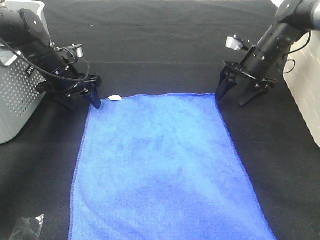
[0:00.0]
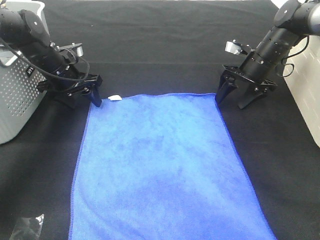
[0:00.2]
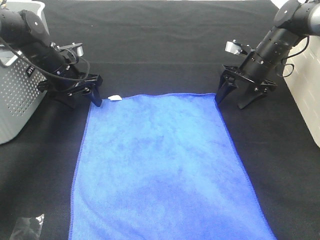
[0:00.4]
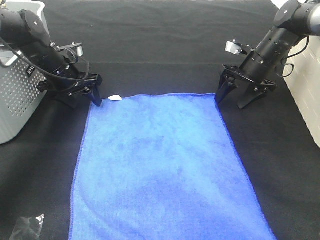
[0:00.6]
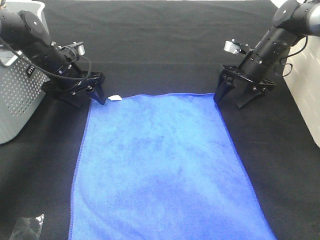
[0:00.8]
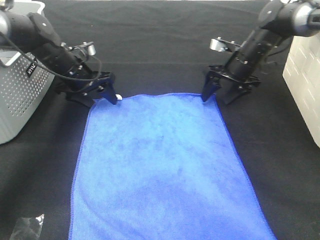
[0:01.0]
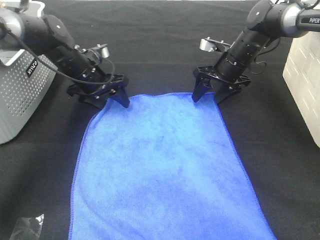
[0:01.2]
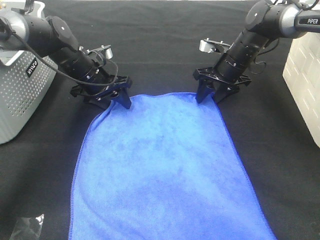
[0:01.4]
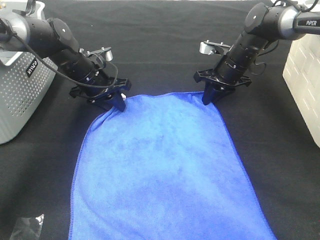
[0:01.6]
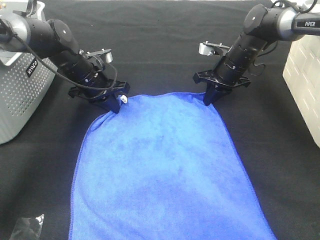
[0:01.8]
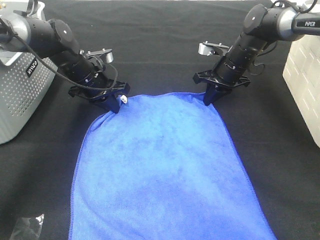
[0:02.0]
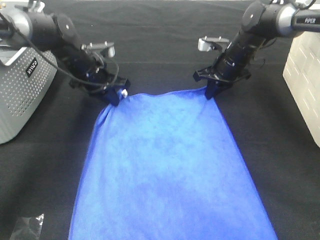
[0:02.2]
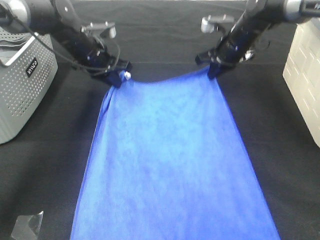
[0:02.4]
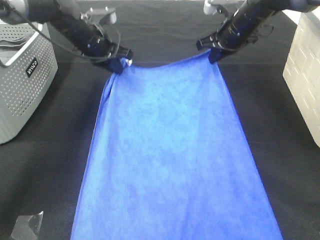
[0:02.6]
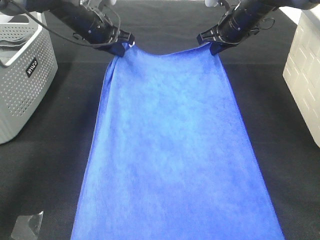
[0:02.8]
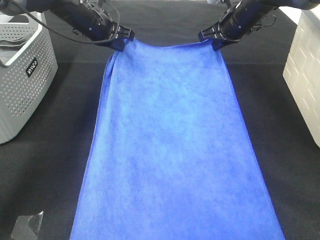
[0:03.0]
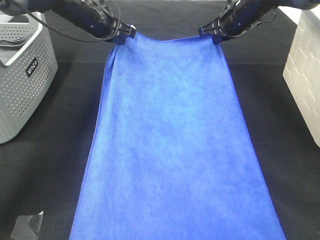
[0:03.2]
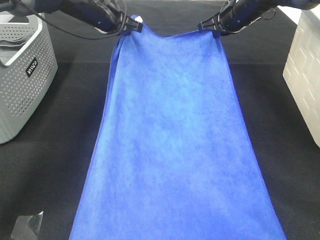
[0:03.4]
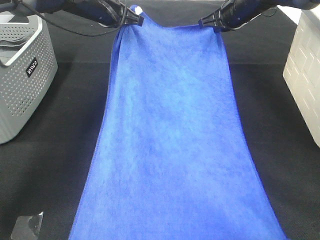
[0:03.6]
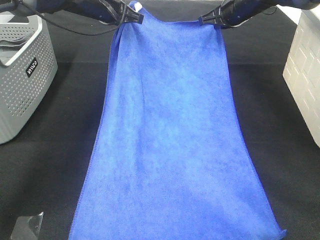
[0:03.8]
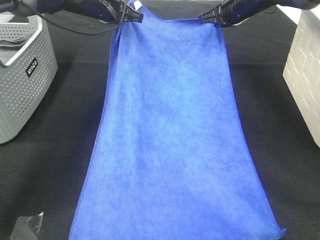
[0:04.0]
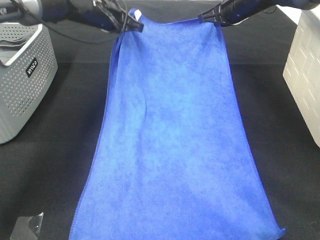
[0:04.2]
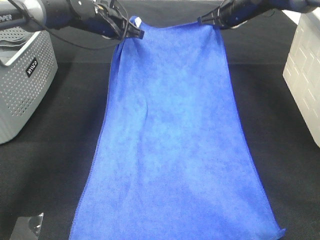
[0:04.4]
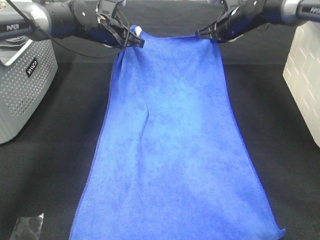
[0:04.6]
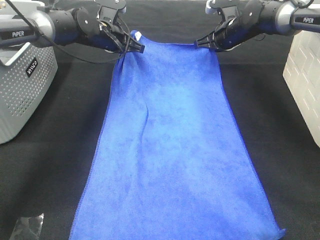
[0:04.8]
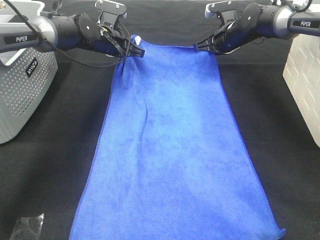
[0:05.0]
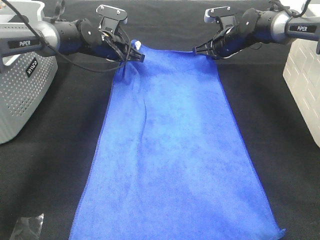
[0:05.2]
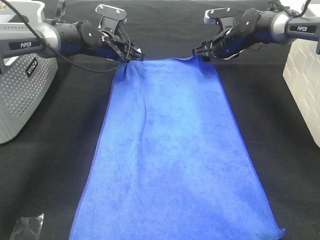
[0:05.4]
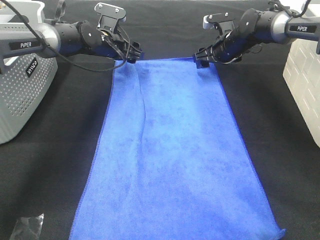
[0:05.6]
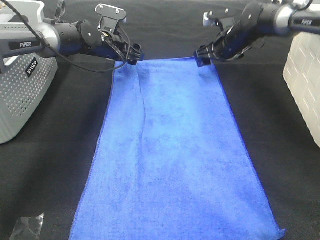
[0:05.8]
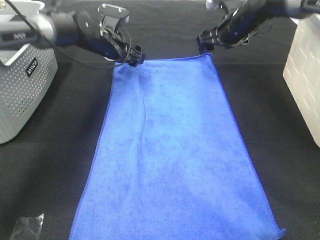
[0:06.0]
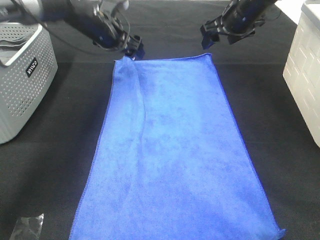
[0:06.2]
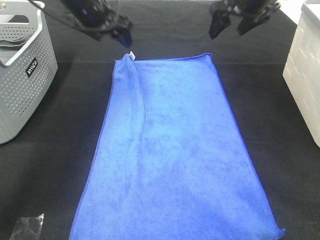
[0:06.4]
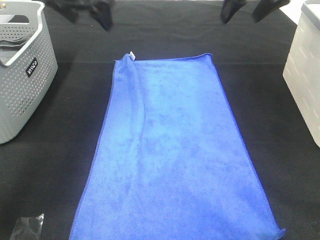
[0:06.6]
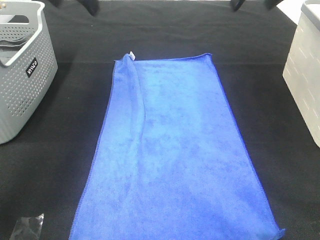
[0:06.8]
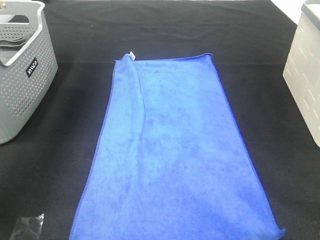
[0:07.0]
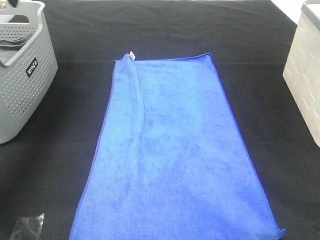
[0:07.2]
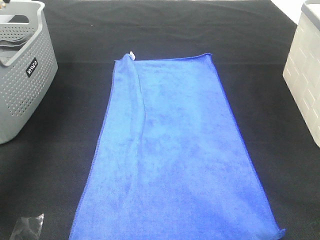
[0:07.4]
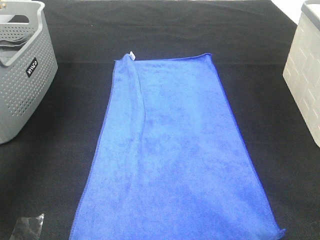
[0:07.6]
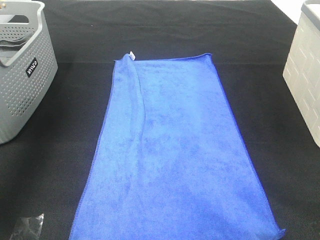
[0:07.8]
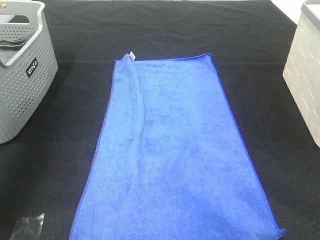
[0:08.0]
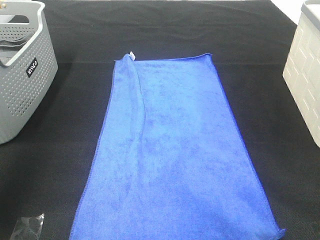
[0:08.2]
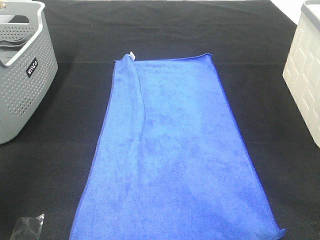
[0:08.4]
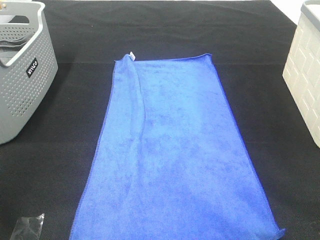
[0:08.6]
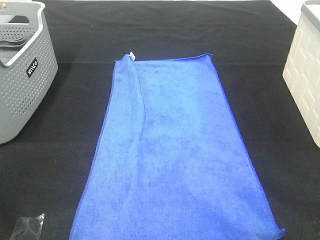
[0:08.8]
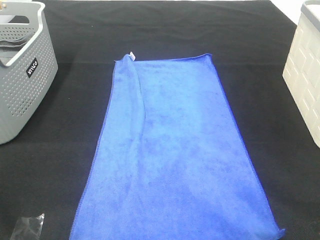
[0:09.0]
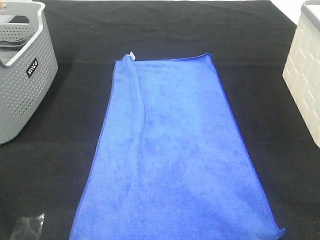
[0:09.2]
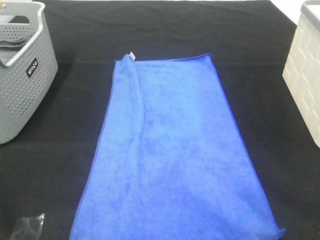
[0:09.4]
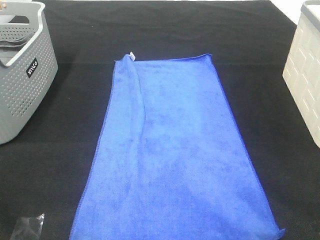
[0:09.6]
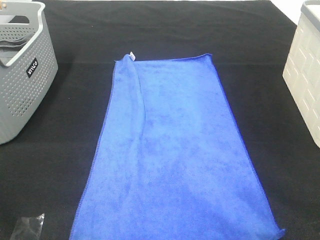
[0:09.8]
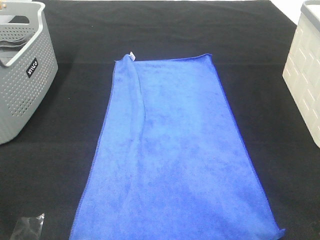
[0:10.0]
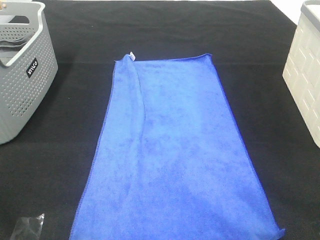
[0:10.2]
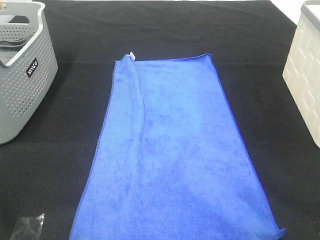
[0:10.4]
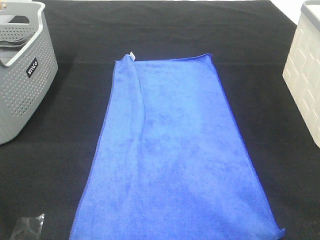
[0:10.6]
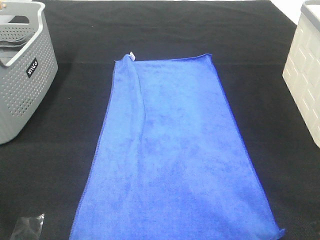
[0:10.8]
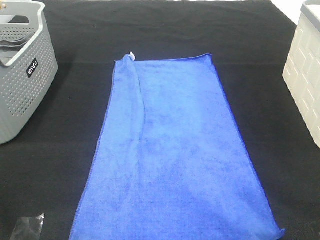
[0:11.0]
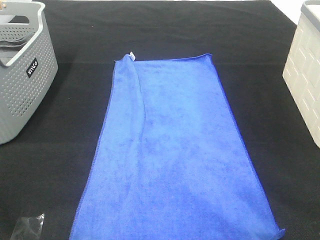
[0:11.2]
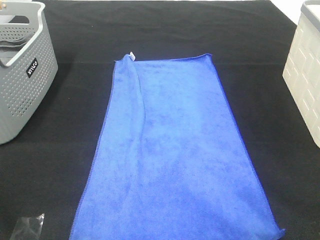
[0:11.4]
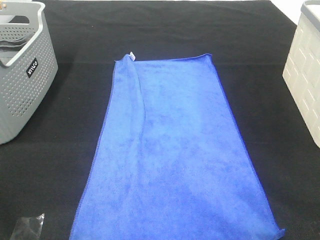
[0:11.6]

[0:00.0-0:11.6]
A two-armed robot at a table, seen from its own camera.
Task of the whole recording: Remove the towel and place it.
0:00.0 to 0:01.4: The right gripper is displaced to the left by about 5 cm; the left gripper goes about 5 cm to the right.
0:01.4 to 0:02.8: The left gripper heads upward and forward, covering about 10 cm, and closes its fingers. The right gripper shifts roughly 10 cm upward, and closes.
0:04.4 to 0:05.8: Both grippers move downward, approximately 5 cm. The left gripper opens up. The right gripper opens.
0:05.8 to 0:07.2: The left gripper goes about 30 cm upward, to the left and backward, while the right gripper goes some 30 cm upward and backward.
0:07.2 to 0:08.8: The two grippers go some 40 cm backward.
0:10.2 to 0:11.6: Neither gripper changes place.

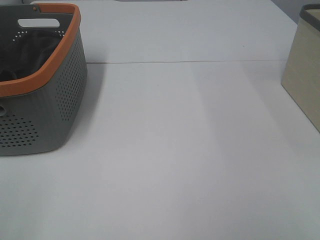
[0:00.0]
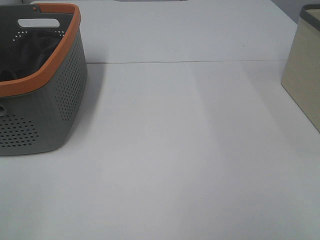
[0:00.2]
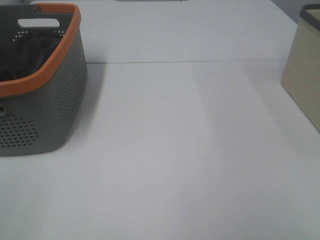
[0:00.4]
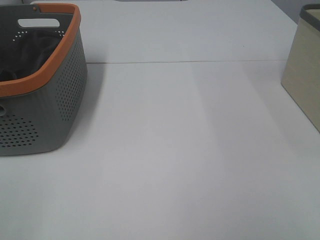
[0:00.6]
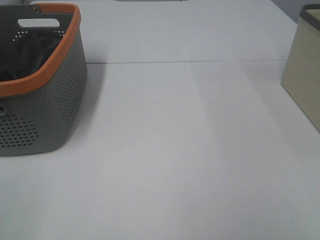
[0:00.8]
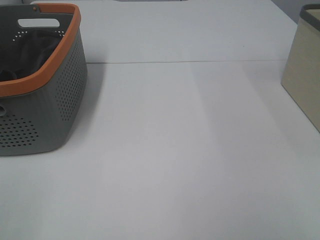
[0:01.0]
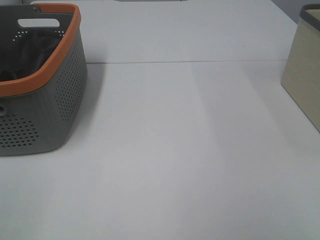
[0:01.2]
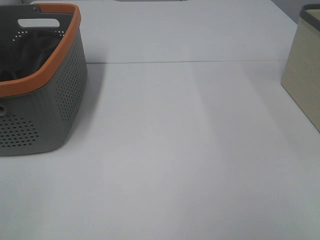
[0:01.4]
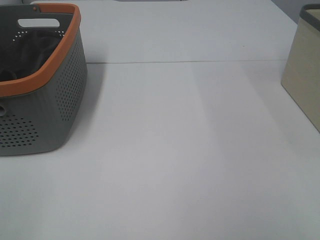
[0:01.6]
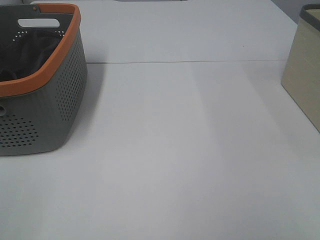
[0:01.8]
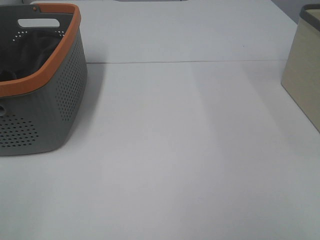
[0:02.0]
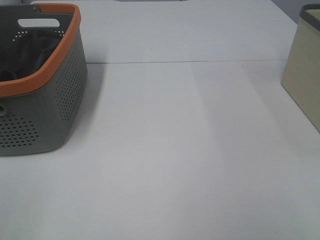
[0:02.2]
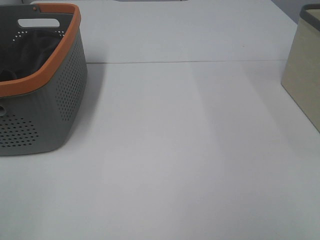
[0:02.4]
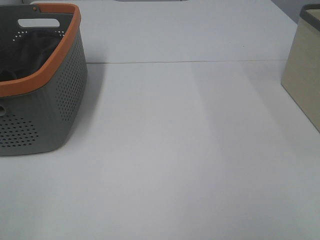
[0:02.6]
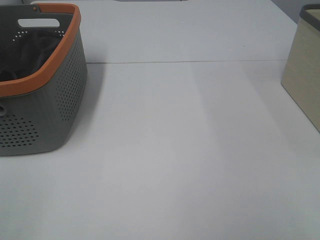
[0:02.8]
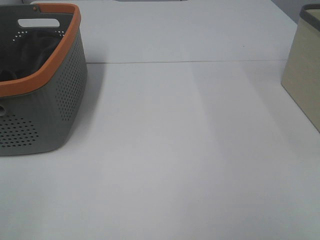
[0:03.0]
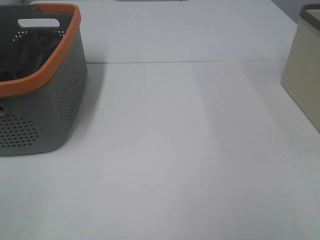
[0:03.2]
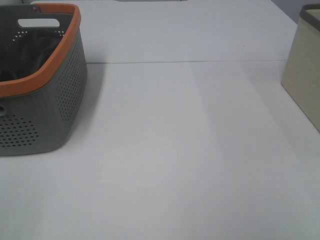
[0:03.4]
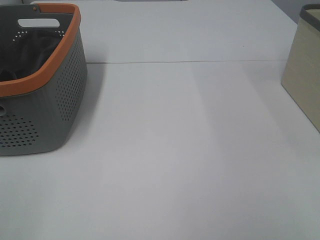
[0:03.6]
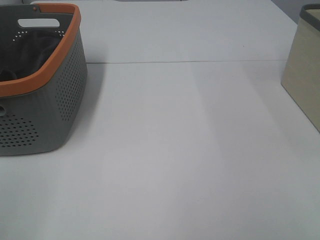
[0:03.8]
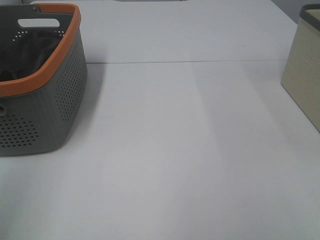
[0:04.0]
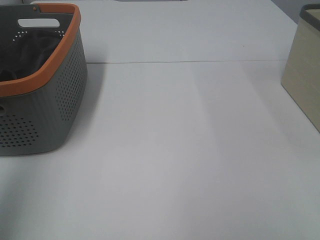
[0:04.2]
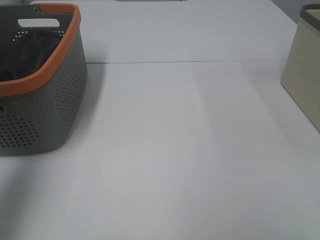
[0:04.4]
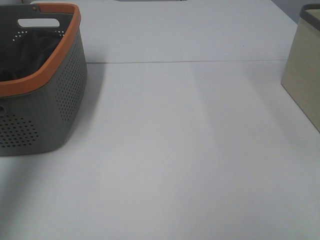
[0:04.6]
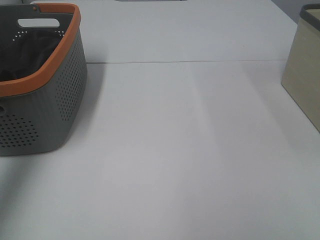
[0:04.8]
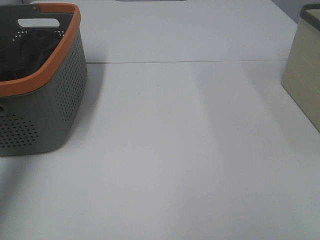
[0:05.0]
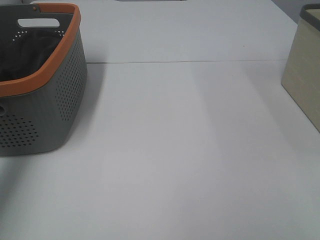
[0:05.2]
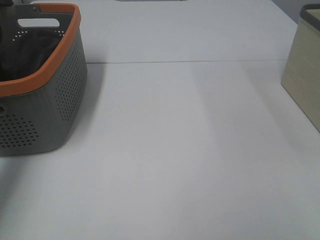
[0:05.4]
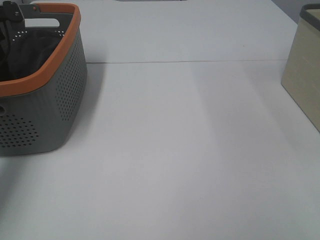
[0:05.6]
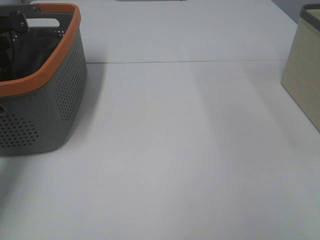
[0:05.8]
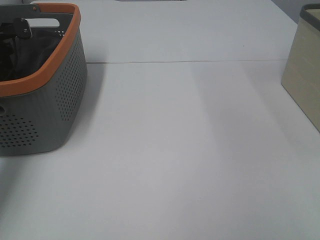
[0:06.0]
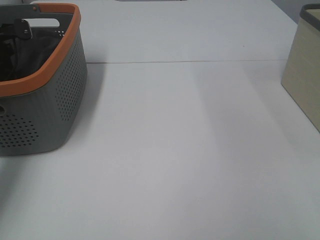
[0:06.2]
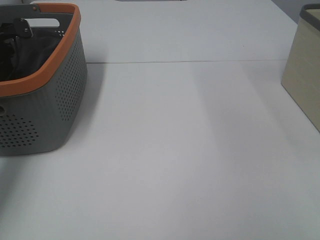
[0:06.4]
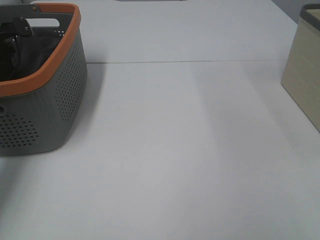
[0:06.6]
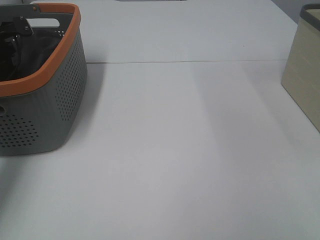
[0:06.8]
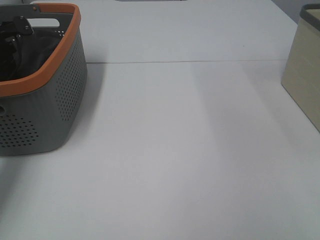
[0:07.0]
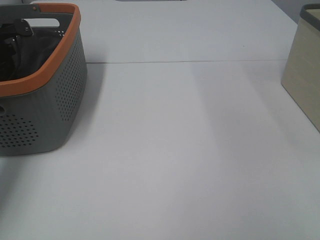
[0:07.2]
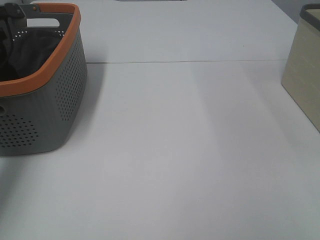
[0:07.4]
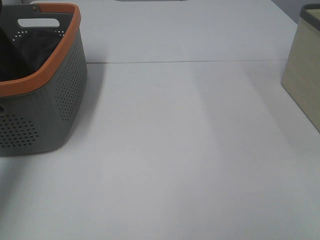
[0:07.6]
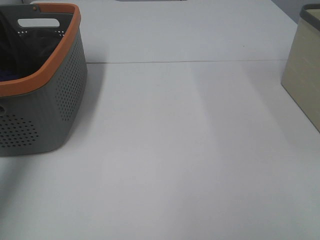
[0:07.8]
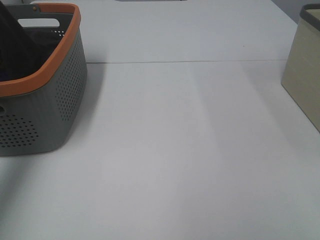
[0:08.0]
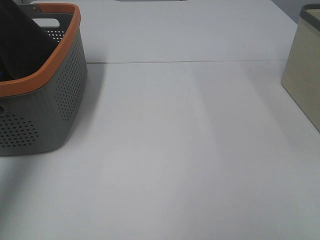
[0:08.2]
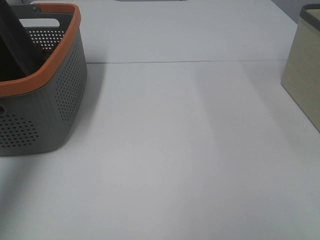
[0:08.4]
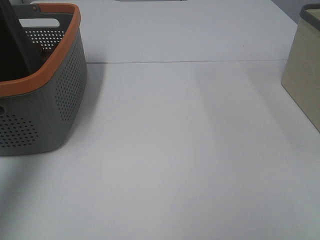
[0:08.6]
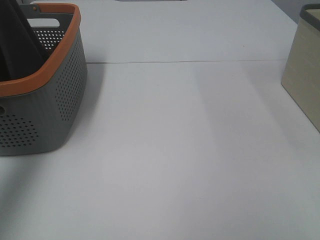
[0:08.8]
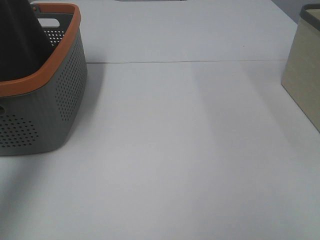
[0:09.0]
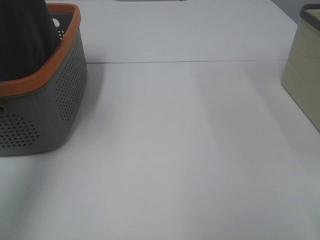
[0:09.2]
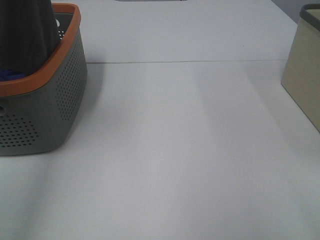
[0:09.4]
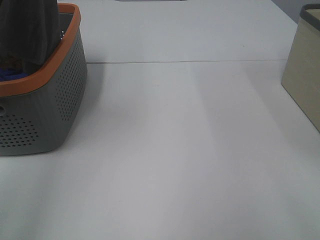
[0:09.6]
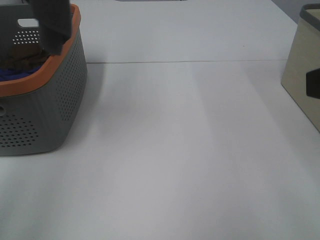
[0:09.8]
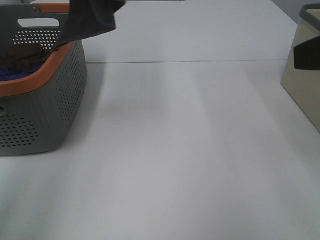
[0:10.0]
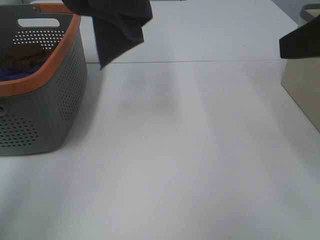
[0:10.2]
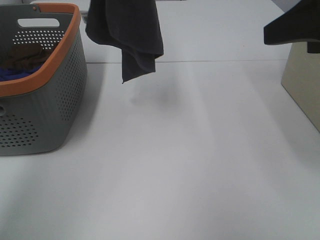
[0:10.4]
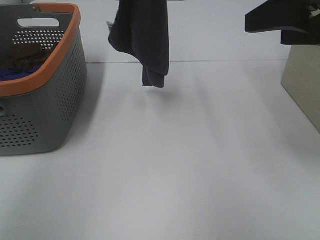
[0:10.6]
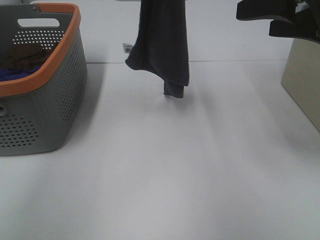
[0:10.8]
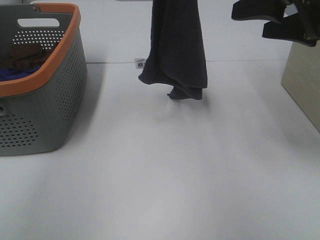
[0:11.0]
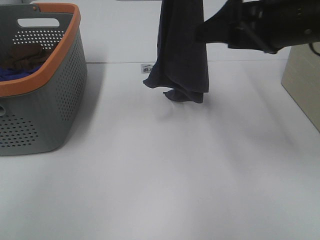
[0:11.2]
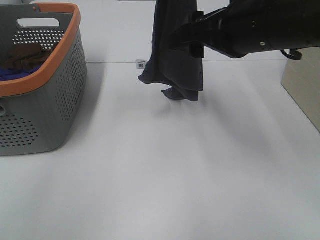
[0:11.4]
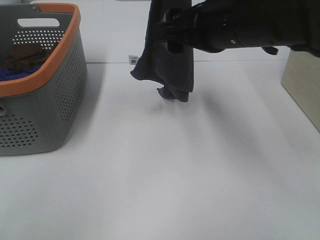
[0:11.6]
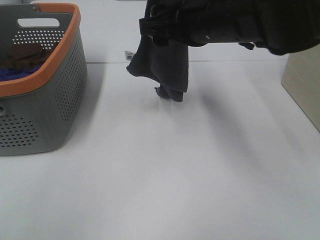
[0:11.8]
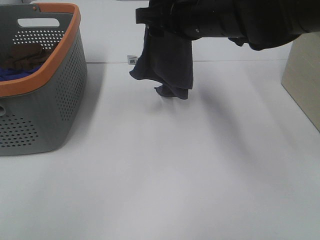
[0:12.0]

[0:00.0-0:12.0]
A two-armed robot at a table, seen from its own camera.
Task of the whole recording: Remove the towel and place it.
0:00.0 to 0:03.0: Neither gripper changes place.
0:03.0 to 0:04.4: The left gripper goes about 25 cm forward and upward.
0:04.4 to 0:06.0: The left gripper shifts about 40 cm downward and forward.
0:07.6 to 0:09.0: The left gripper is displaced upward and backward by roughly 25 cm.
0:09.0 to 0:10.4: The left gripper travels to the right by approximately 20 cm. Meanwhile the right gripper shifts some 20 cm forward.
0:10.4 to 0:12.0: The left gripper heads to the right and downward, covering approximately 10 cm. The right gripper shifts some 20 cm to the left, forward and downward.
